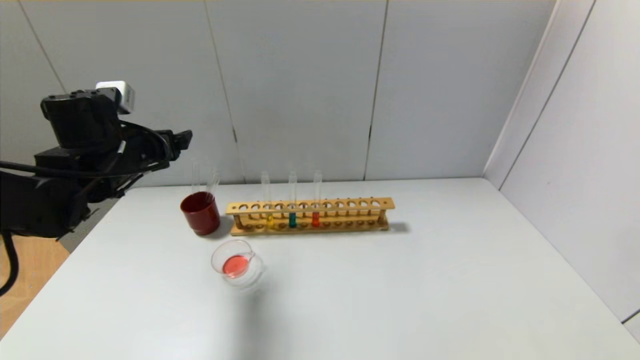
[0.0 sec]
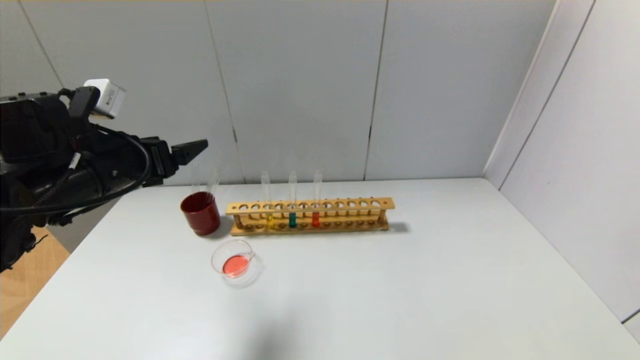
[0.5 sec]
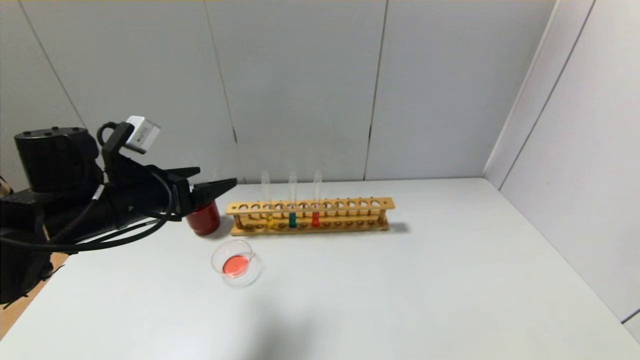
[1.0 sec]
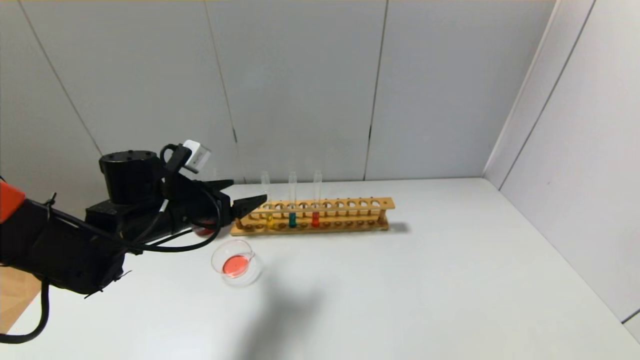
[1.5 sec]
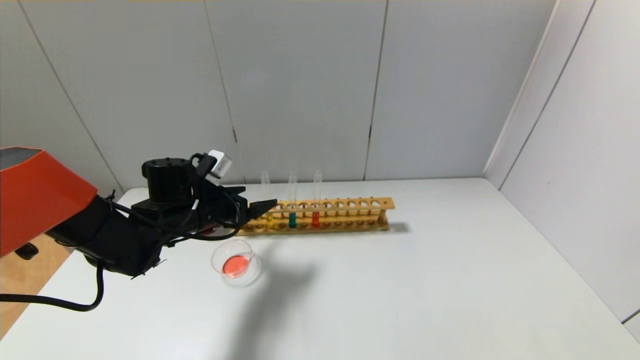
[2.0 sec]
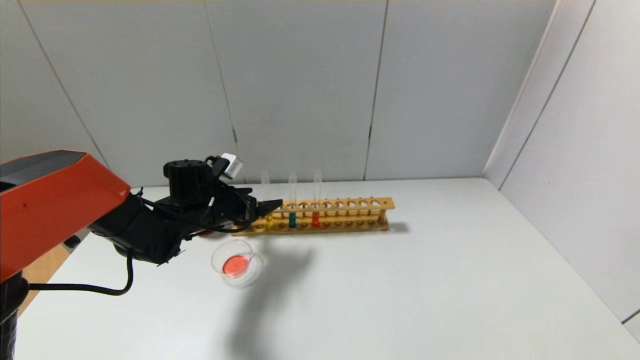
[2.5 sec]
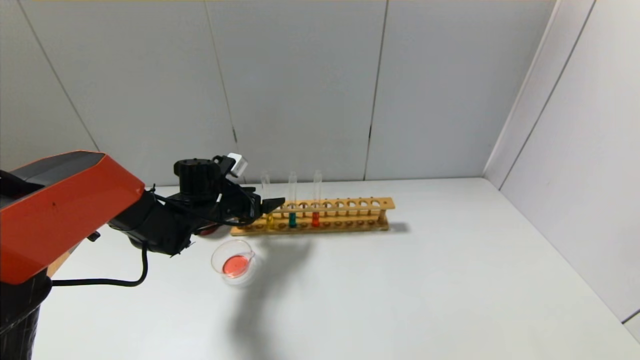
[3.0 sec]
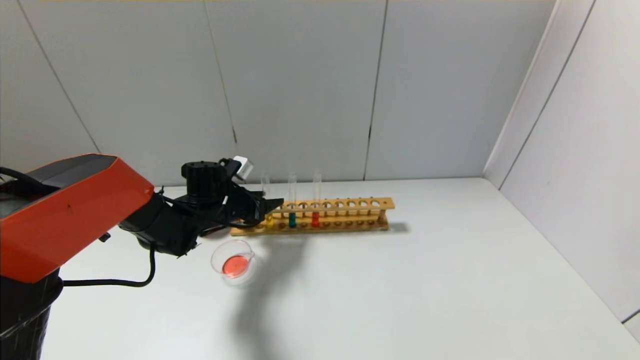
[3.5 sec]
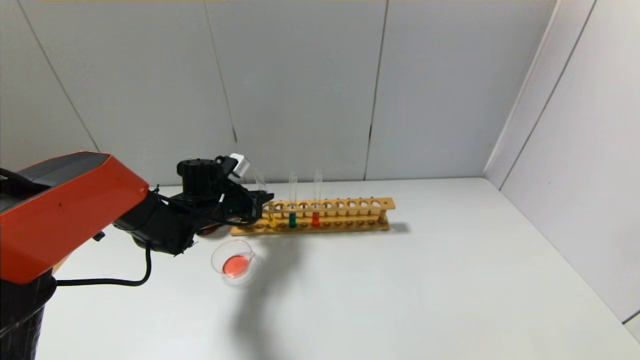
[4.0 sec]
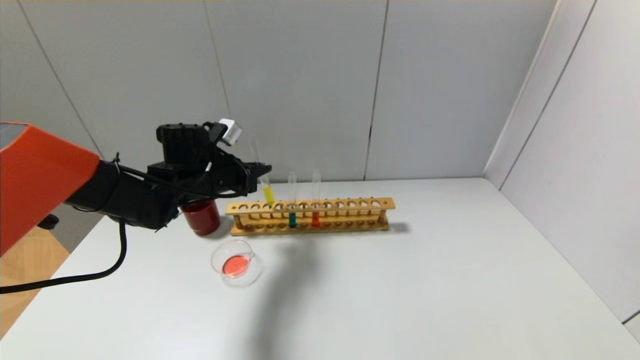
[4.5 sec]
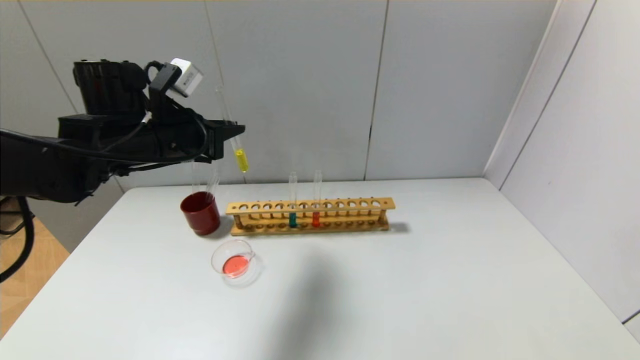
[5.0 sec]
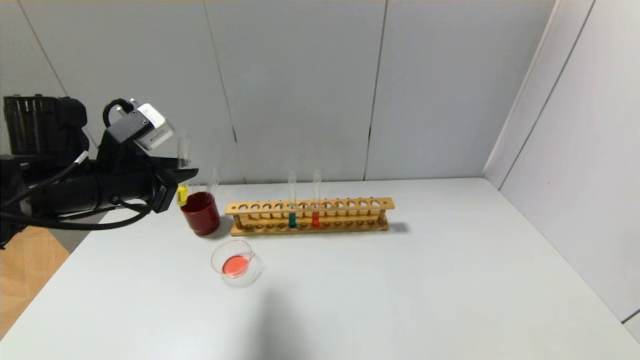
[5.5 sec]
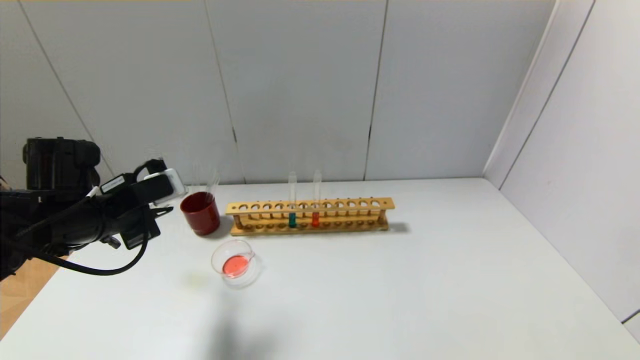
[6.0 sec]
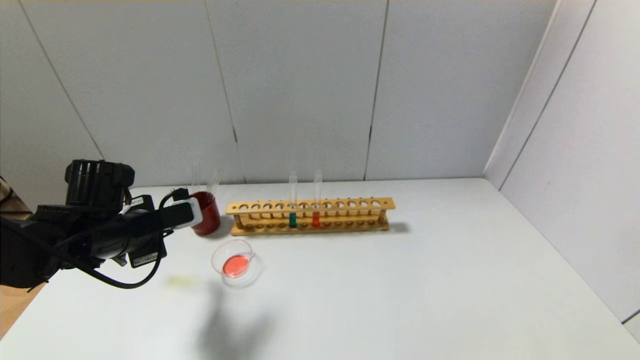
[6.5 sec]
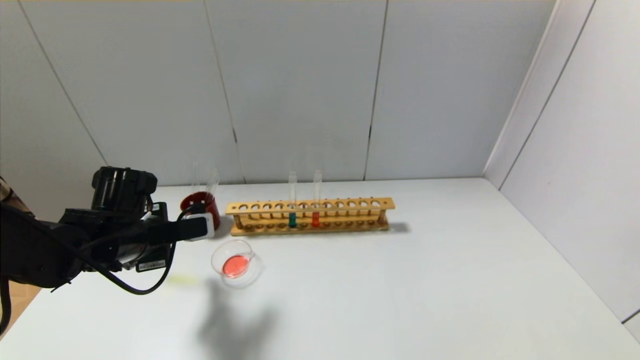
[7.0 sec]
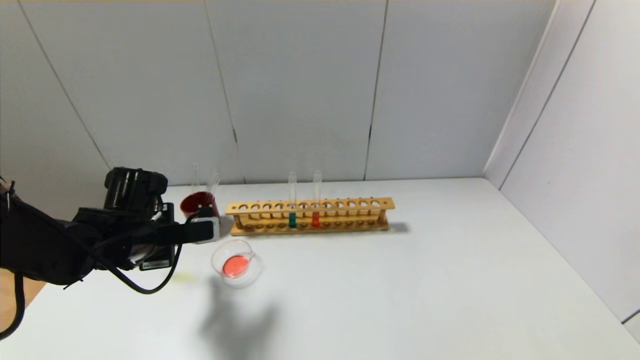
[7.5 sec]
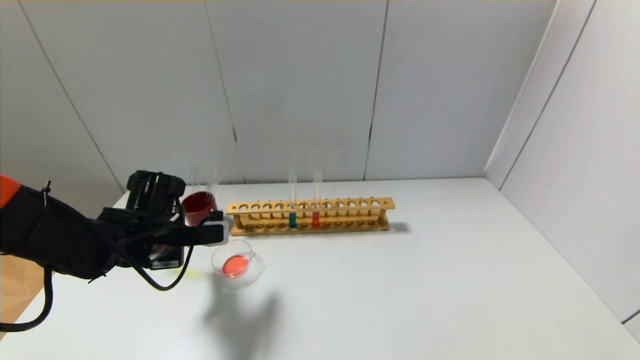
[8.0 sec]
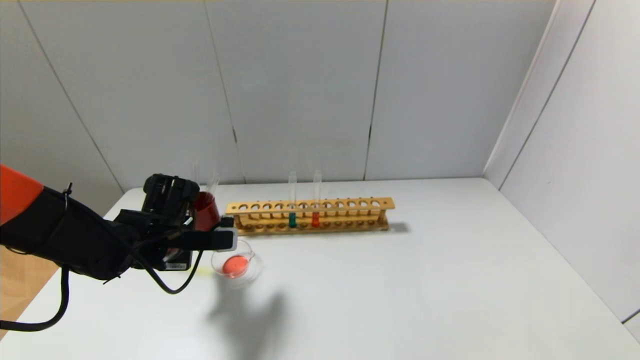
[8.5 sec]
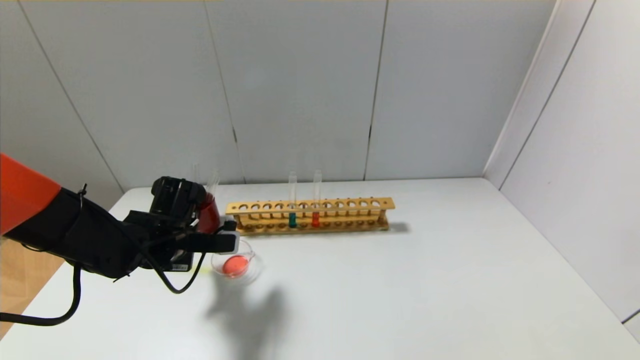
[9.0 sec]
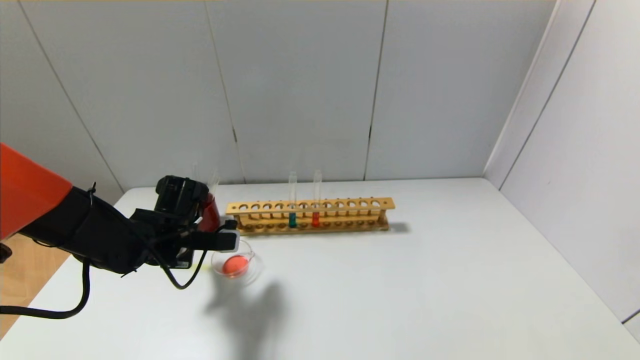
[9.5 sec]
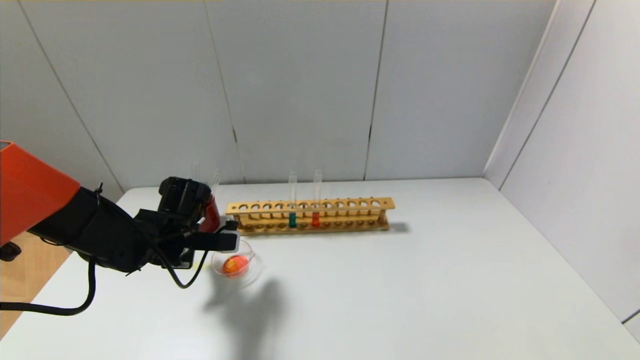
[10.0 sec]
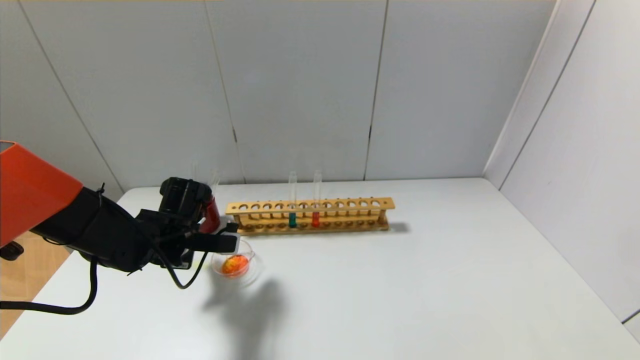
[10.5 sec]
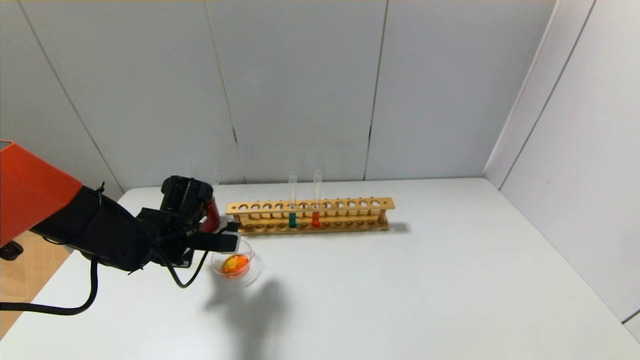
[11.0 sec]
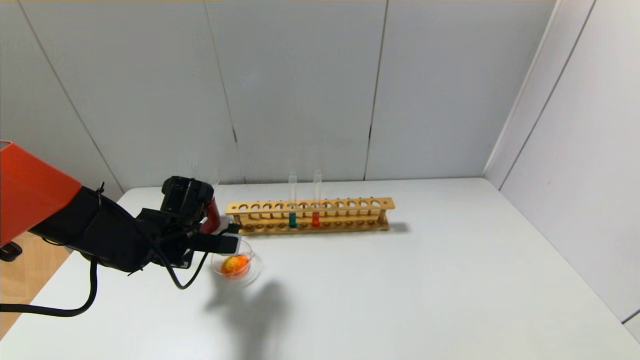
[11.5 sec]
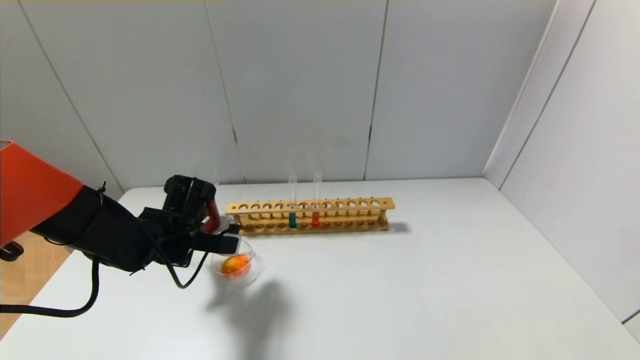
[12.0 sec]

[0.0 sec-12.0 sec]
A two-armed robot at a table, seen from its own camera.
Step, 0.0 sec to 3.5 sec: Grasp the yellow reagent with the left gripper.
0.0 sec to 2.0 sec: The left gripper travels downward and to the right by approximately 15 cm.
2.0 sec to 4.0 sec: The left gripper is displaced forward by some 5 cm, and closes its fingers.
4.0 sec to 6.0 sec: The left gripper goes roughly 20 cm backward, to the left and upward.
6.0 sec to 8.0 sec: The left gripper moves downward, approximately 5 cm.
8.0 sec to 12.0 sec: The grippers stay close to where they were, moving slightly.

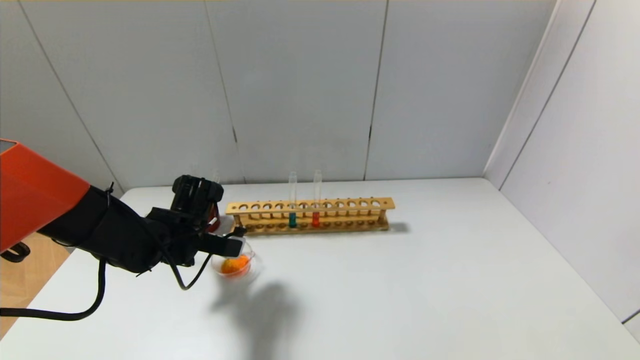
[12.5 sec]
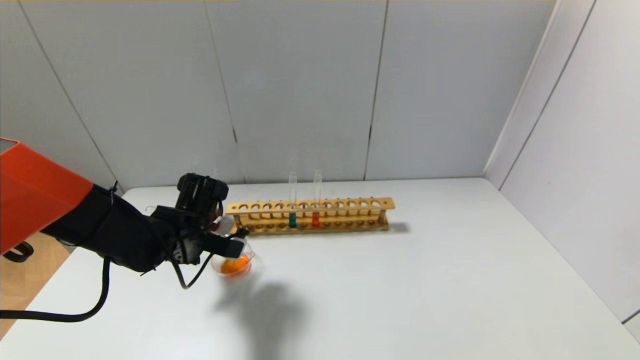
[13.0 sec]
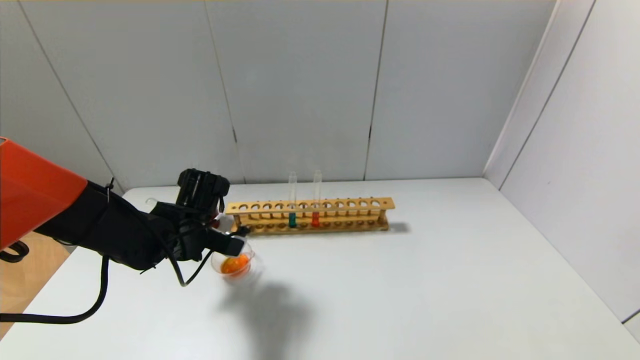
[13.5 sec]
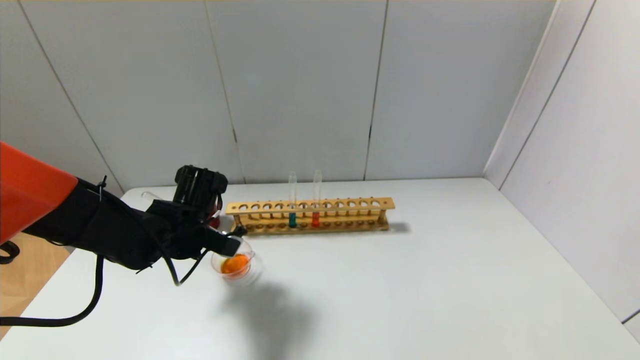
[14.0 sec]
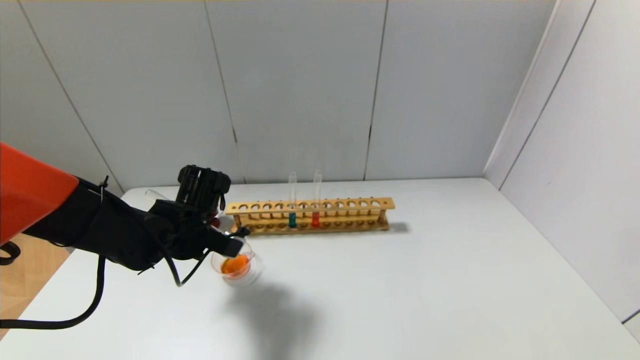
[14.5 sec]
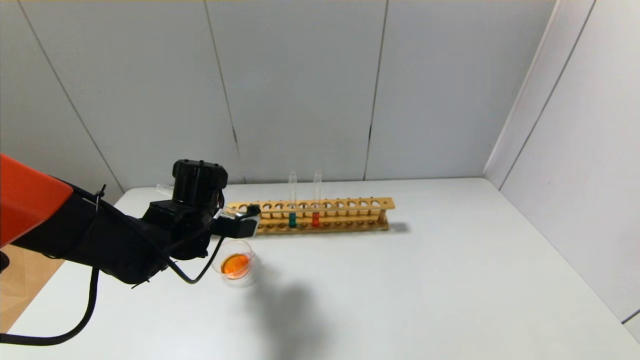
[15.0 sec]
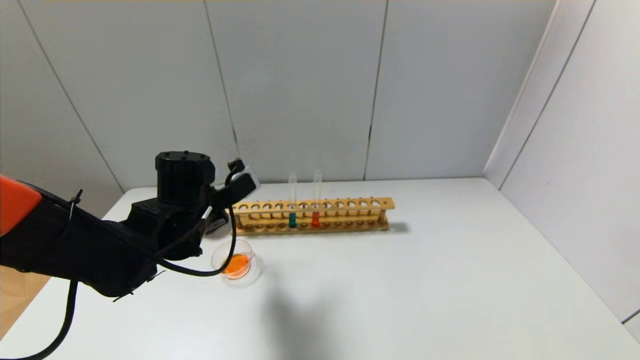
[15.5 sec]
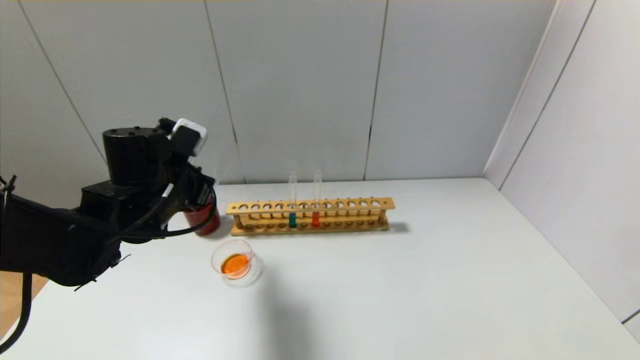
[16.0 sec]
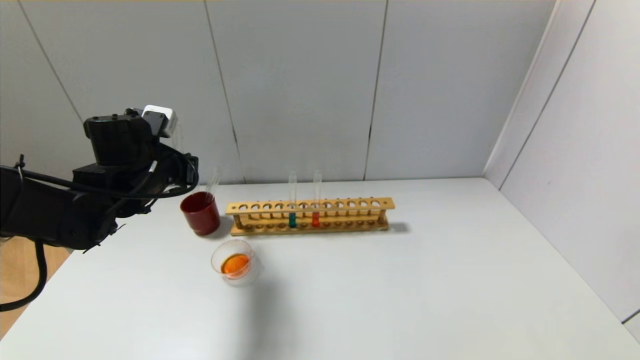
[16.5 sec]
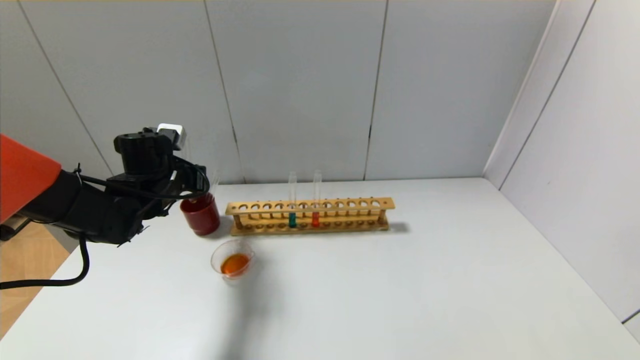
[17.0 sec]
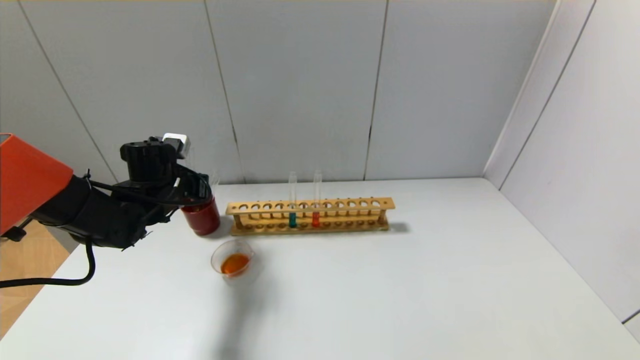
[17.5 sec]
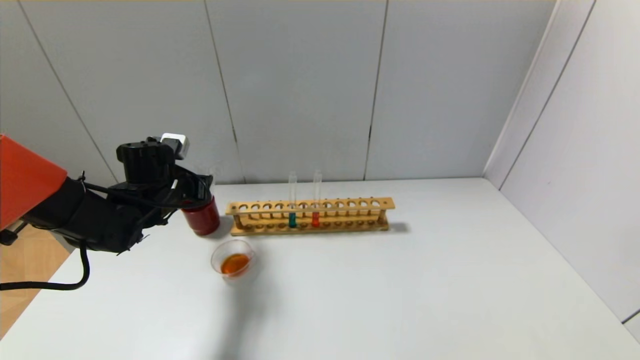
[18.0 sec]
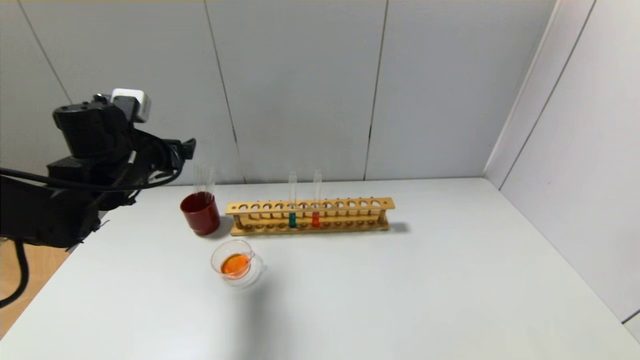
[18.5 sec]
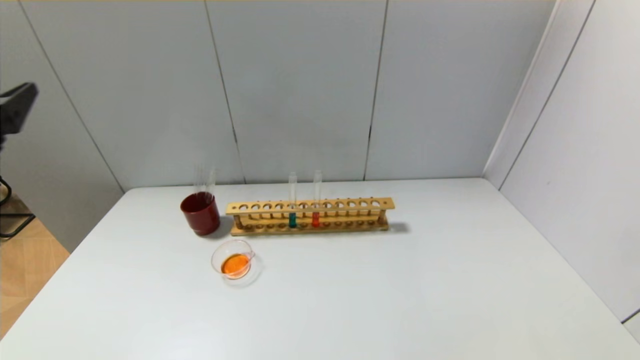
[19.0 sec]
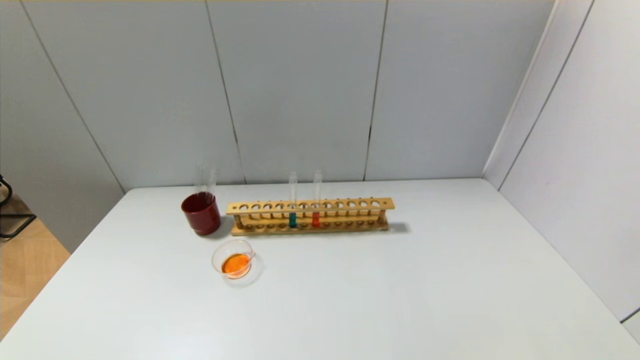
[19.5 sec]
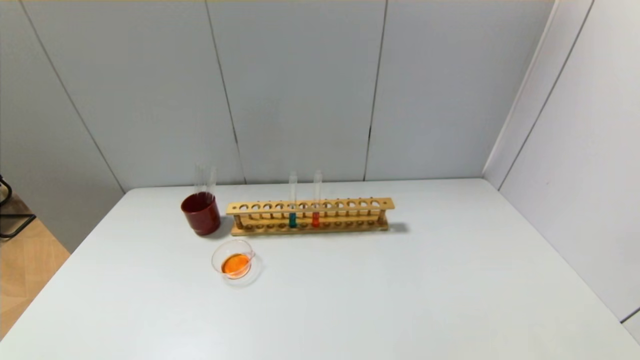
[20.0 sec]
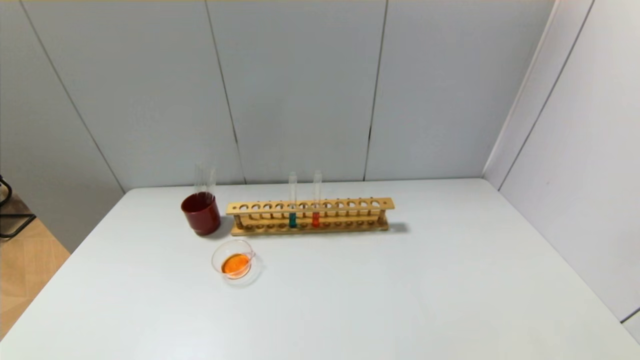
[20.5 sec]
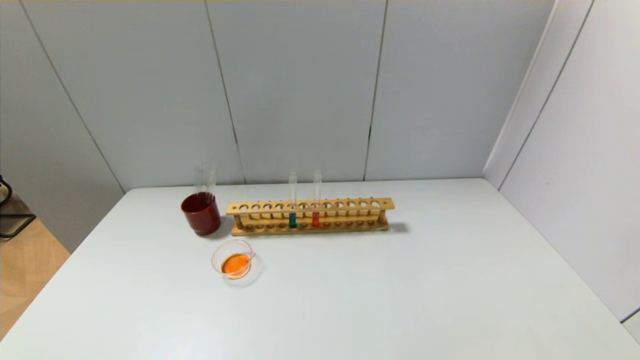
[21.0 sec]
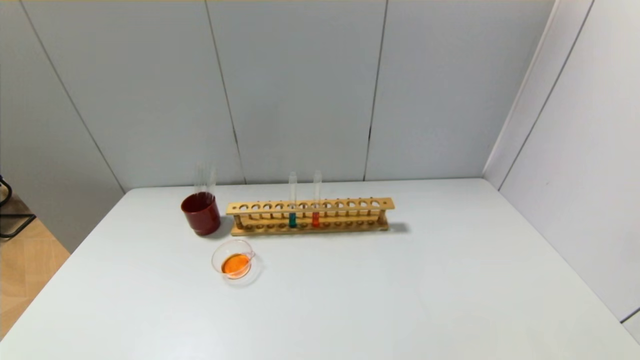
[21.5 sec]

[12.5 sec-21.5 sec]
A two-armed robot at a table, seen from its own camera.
Step, 13.5 sec to 17.5 sec: Place the test tube into the brown cup with the left gripper.
12.5 sec to 14.5 sec: The grippers make only small movements.
14.5 sec to 17.0 sec: The left gripper heads to the left and forward, covering some 10 cm.
17.0 sec to 19.5 sec: The left gripper shifts roughly 40 cm backward, and opens its fingers.
